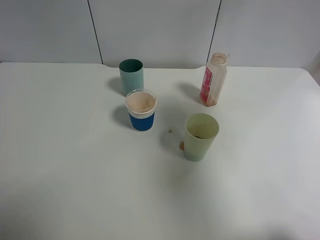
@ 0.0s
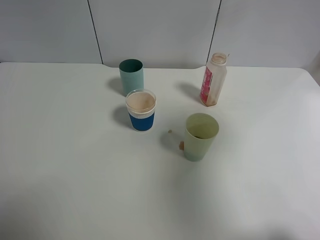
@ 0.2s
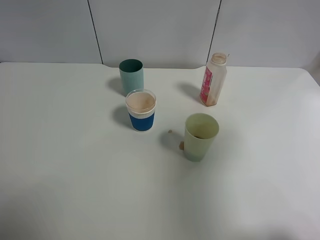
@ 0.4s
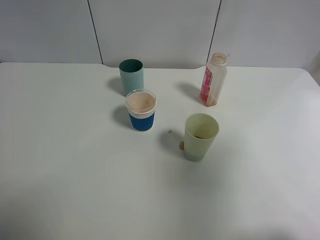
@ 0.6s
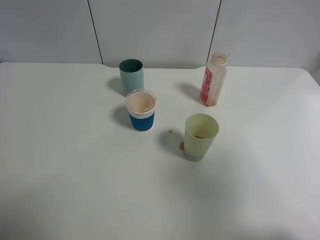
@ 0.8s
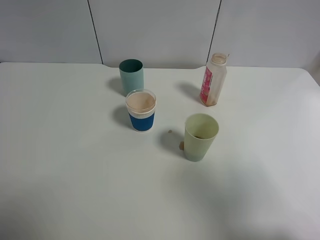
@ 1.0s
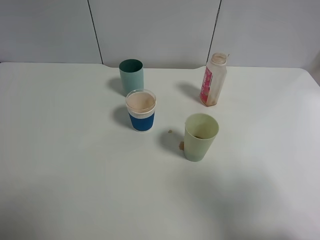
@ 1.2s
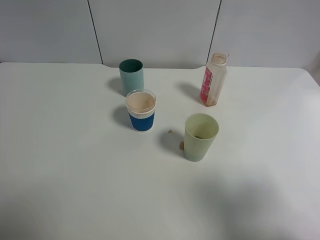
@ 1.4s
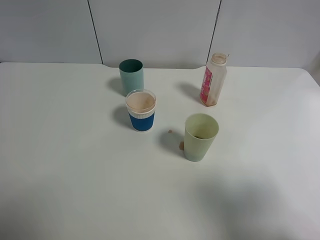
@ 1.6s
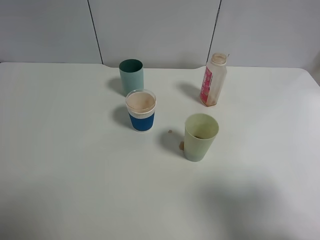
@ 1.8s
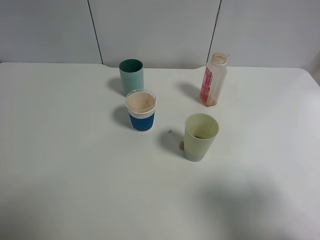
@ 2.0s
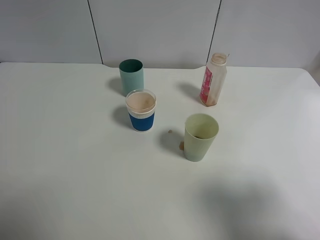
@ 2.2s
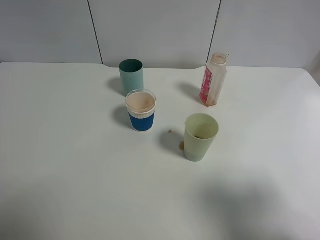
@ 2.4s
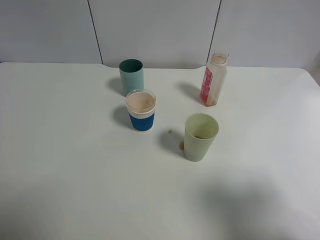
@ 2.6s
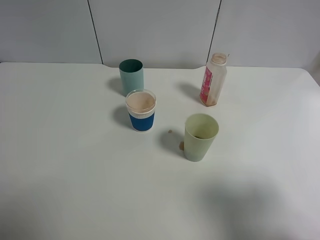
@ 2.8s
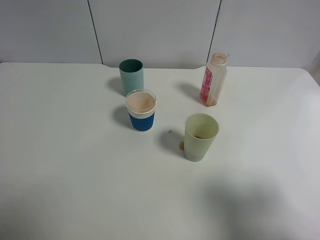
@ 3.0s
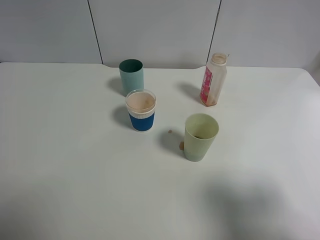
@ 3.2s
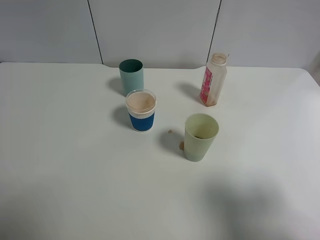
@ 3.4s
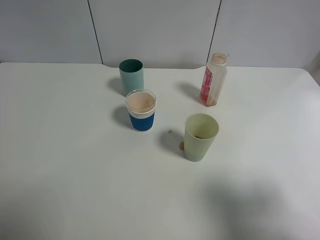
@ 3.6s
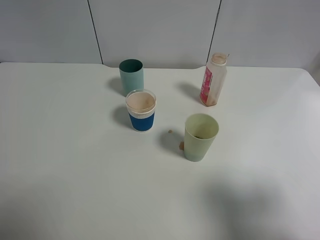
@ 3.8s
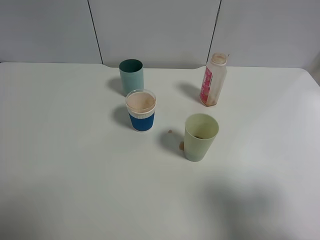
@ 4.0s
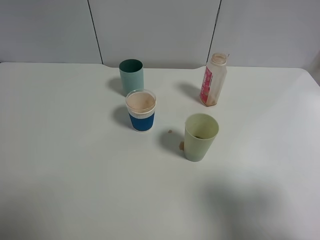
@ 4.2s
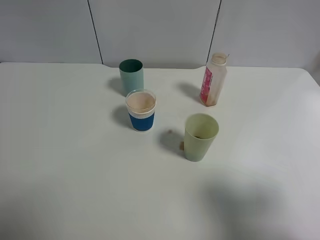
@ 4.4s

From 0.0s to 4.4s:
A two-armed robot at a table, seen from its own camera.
Task of the whole recording: use a gripper to hold the bottle of the drink and pour it into a random cup.
From 0.0s to 1.4s: The right gripper is displaced backward and downward by about 20 cm.
From 3.0s to 4.4s: Both grippers stay put.

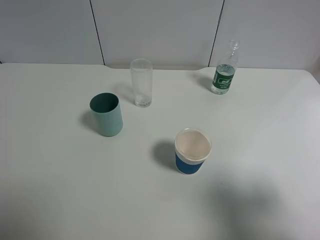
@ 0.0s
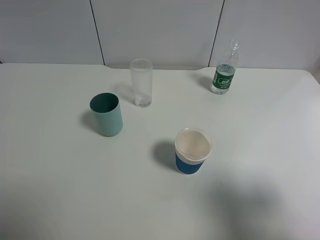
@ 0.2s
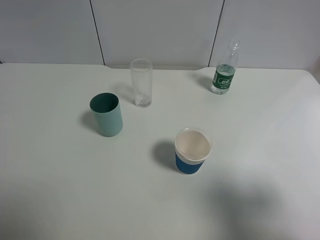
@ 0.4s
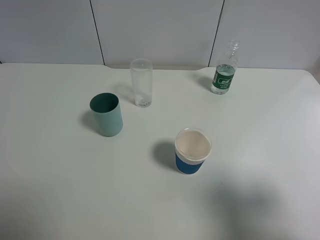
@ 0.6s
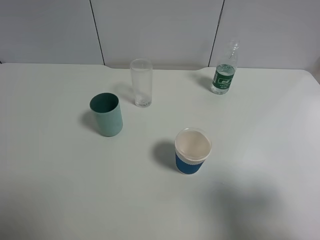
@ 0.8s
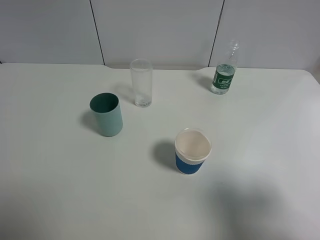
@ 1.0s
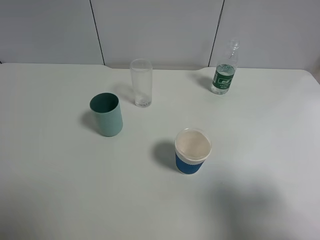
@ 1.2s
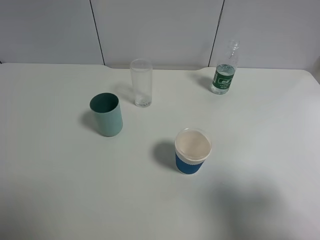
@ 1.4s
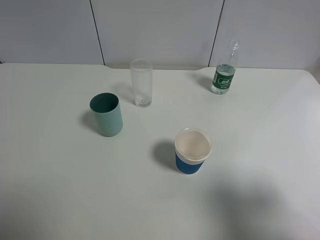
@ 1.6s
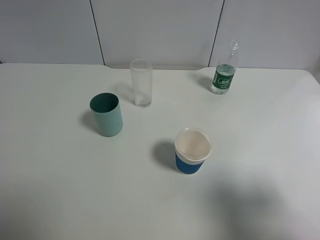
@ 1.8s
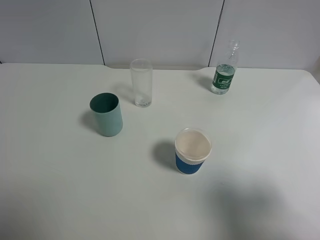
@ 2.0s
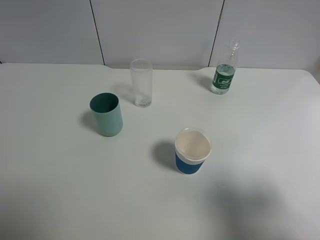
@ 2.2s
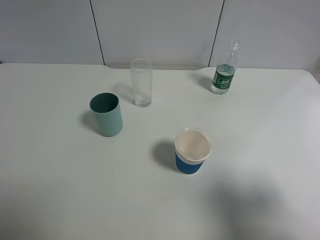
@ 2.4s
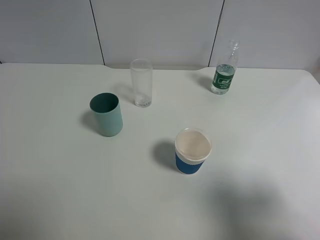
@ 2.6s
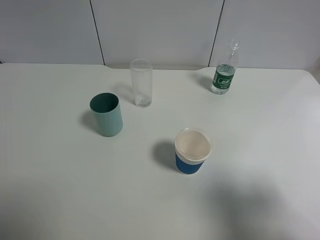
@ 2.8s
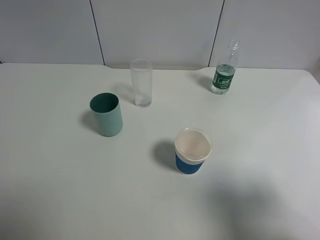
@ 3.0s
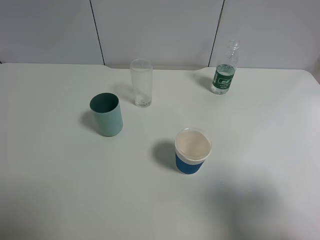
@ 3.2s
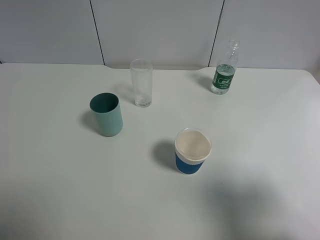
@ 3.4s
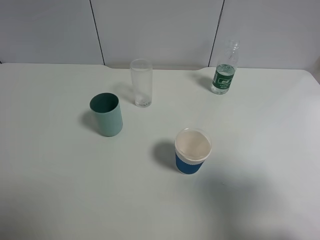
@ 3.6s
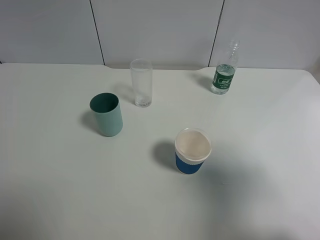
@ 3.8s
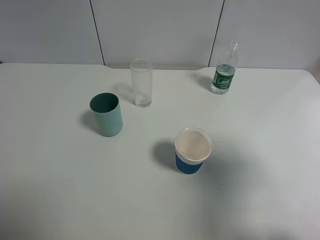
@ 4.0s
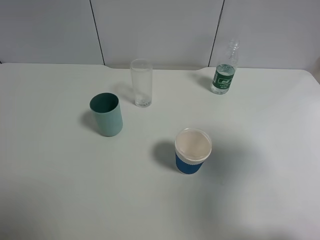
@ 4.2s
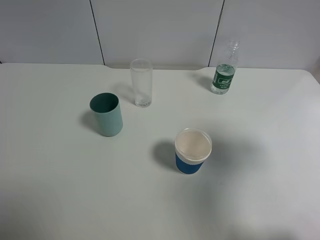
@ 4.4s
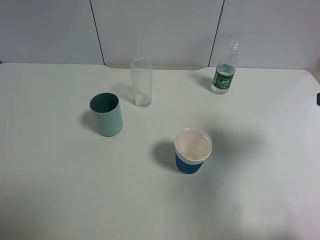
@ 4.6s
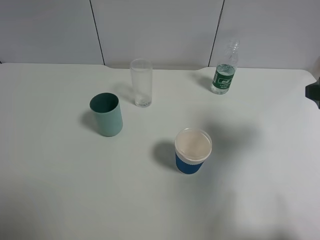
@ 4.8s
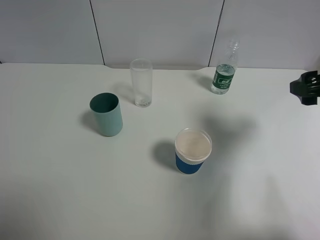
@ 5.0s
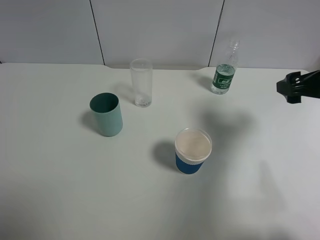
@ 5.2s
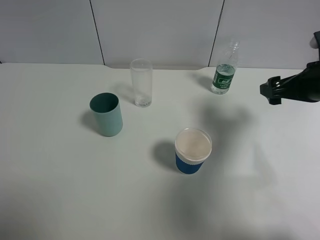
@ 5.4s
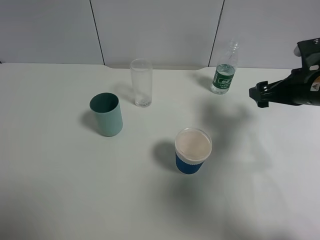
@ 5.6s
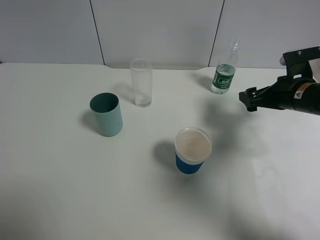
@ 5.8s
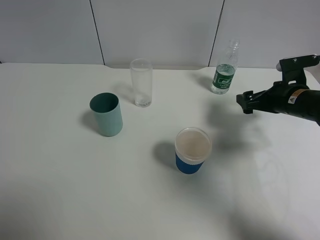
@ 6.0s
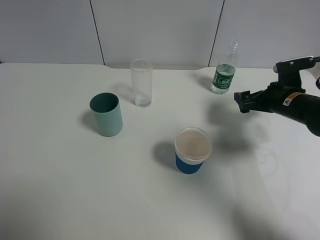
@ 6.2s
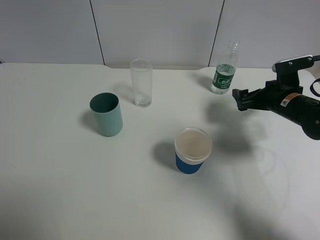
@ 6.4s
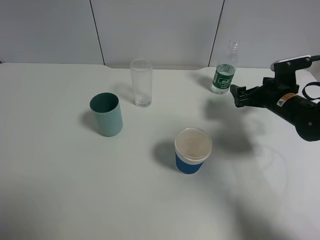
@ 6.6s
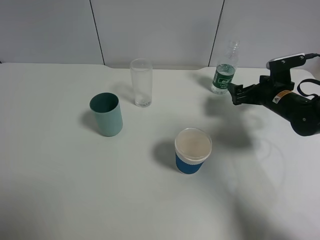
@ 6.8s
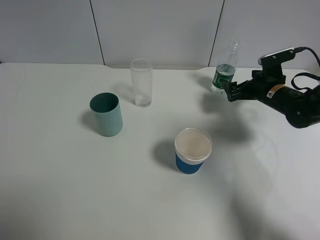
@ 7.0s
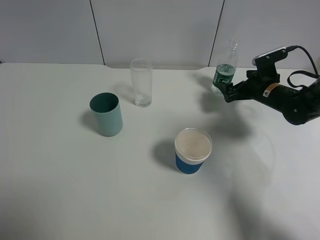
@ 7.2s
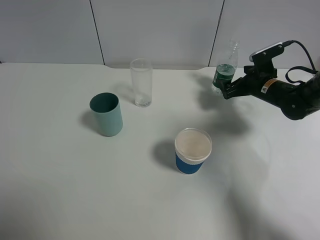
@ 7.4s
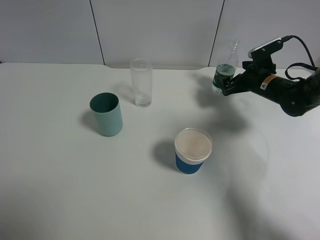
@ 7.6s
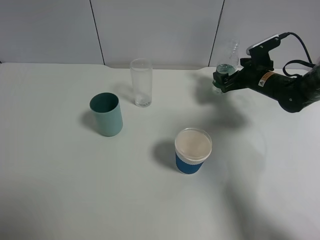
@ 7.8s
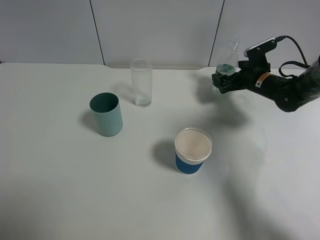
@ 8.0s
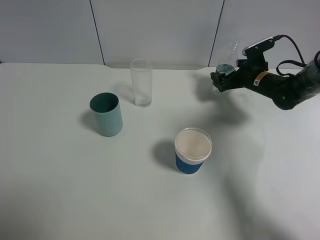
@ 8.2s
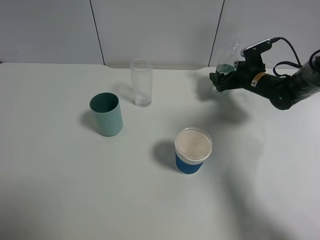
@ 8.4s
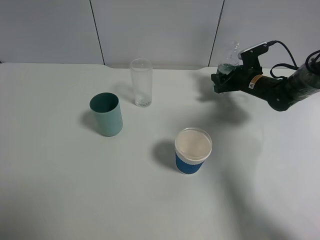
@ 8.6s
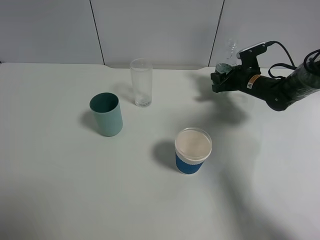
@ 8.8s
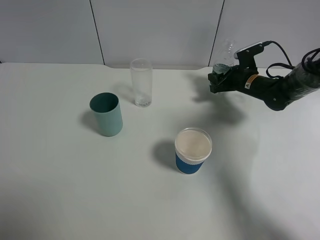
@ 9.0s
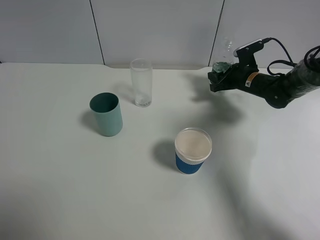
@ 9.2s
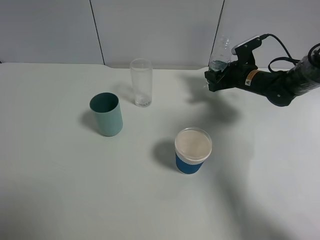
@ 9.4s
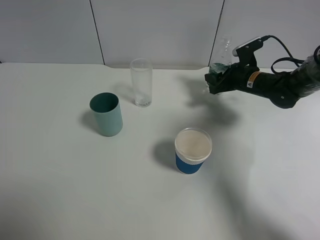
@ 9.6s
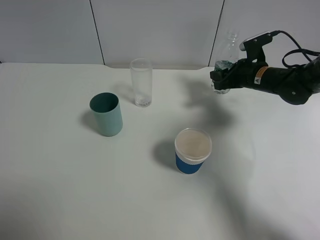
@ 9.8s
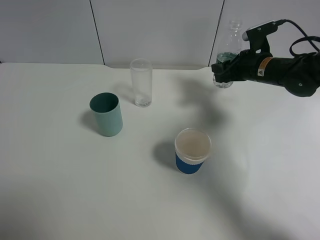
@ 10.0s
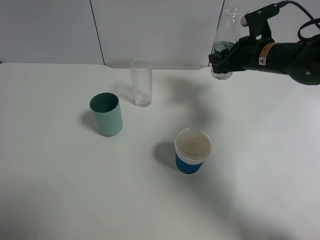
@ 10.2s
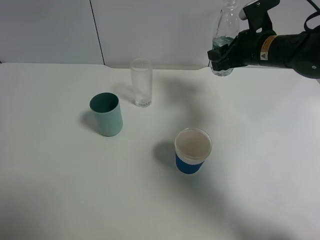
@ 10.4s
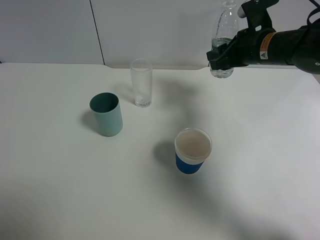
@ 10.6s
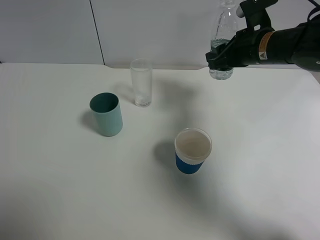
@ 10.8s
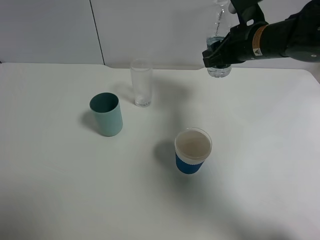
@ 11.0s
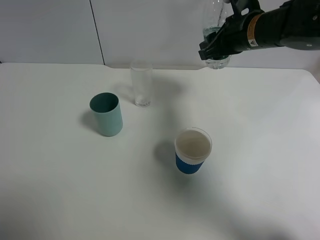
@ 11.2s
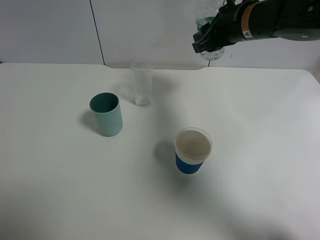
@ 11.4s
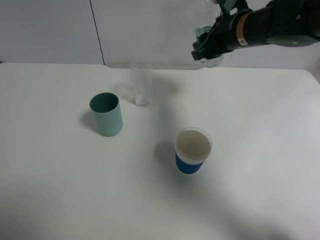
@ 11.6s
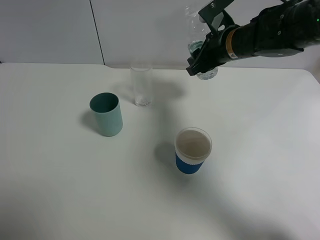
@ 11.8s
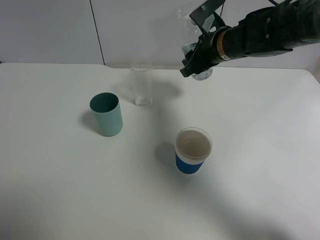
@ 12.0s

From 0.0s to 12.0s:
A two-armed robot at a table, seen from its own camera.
Task of the whole recording: use a gripper to hold the bottle of the drink and pour it into a random cup.
Step, from 0.0s to 8.6s: Grasp the mineral water bottle with the right gripper.
From 0.0s to 3.0s: Neither gripper changes place.
From 3.0s to 4.4s: The right gripper goes approximately 10 cm forward.
From 4.4s to 6.0s: The right gripper shifts approximately 25 cm forward and downward.
From 6.0s to 7.6s: The right gripper shifts about 10 cm forward.
From 7.6s to 9.0s: The right gripper closes.
From 9.0s to 10.4s: The right gripper shifts approximately 15 cm upward and backward.
From 10.4s to 12.0s: The right gripper travels to the left by some 10 cm.

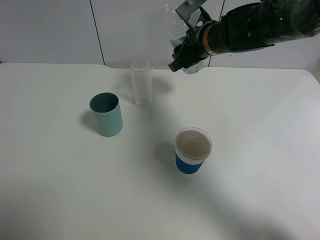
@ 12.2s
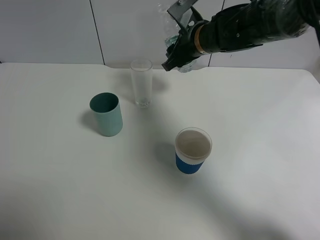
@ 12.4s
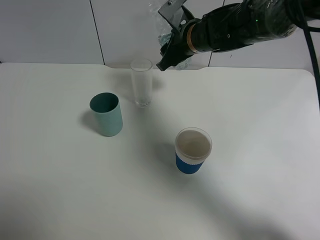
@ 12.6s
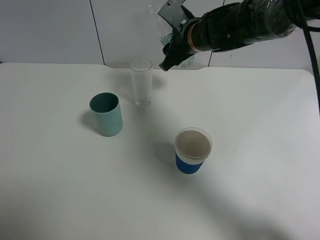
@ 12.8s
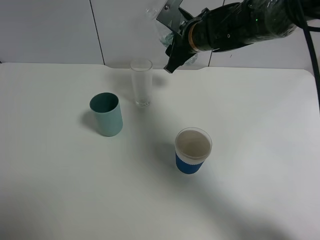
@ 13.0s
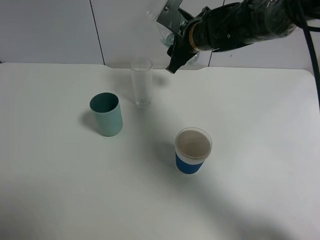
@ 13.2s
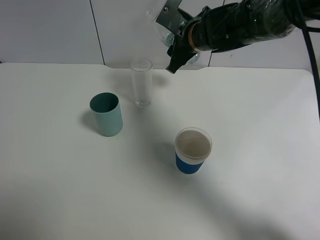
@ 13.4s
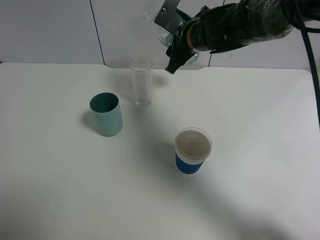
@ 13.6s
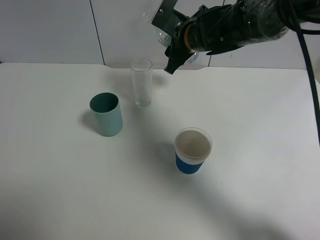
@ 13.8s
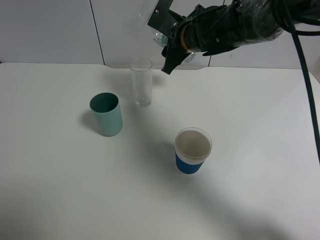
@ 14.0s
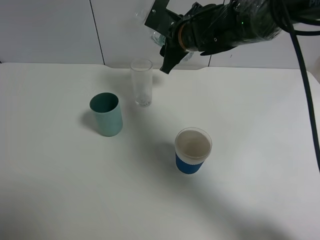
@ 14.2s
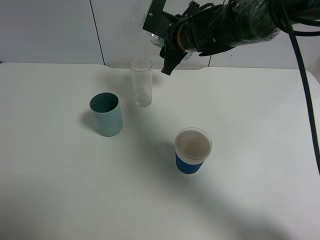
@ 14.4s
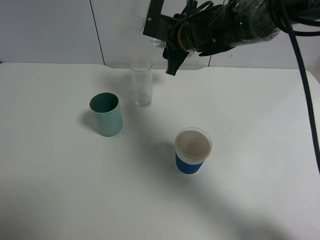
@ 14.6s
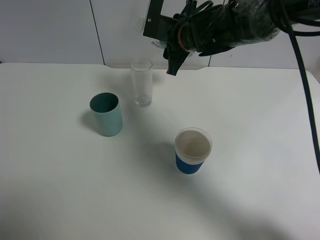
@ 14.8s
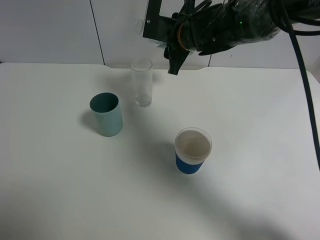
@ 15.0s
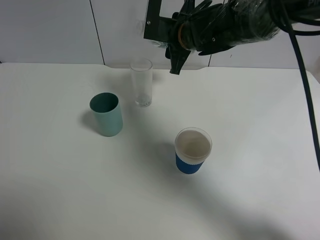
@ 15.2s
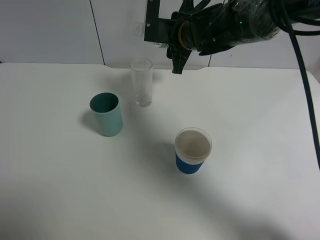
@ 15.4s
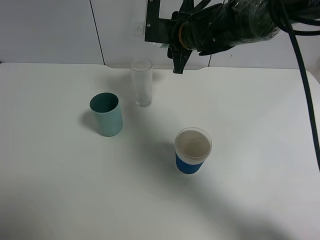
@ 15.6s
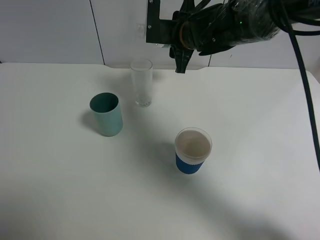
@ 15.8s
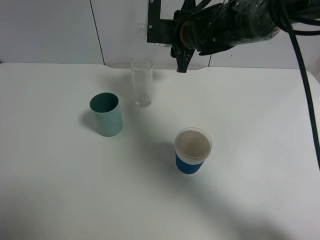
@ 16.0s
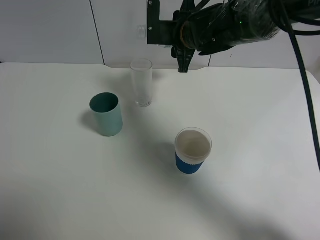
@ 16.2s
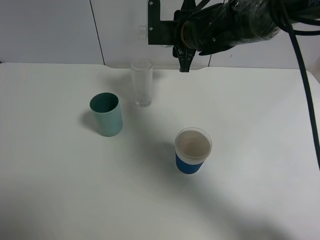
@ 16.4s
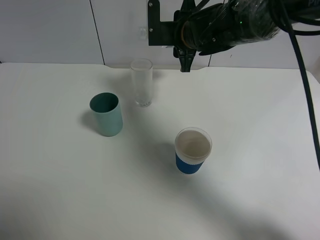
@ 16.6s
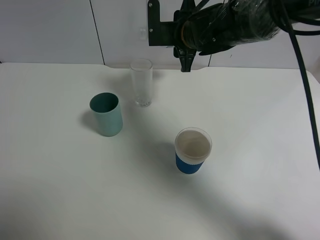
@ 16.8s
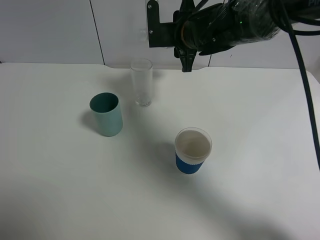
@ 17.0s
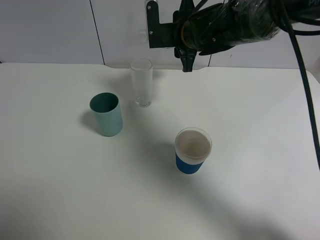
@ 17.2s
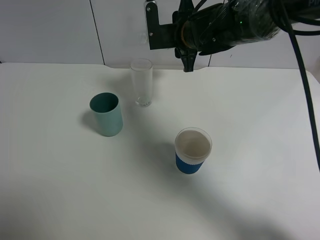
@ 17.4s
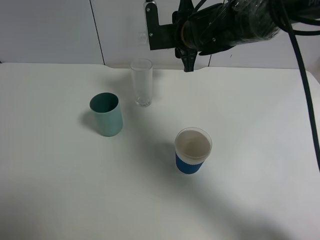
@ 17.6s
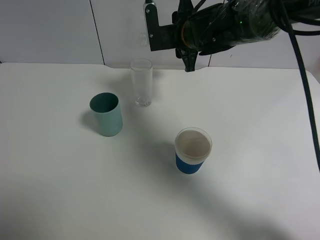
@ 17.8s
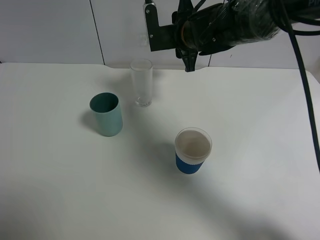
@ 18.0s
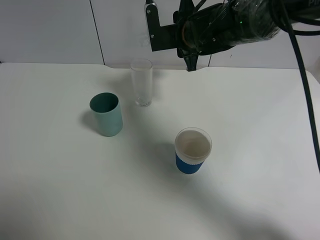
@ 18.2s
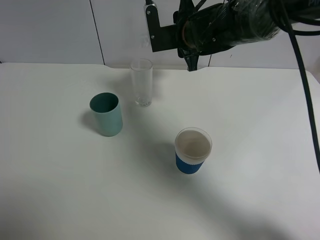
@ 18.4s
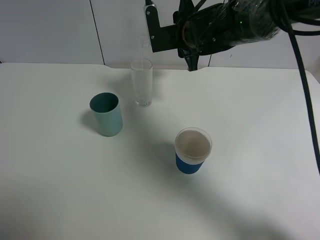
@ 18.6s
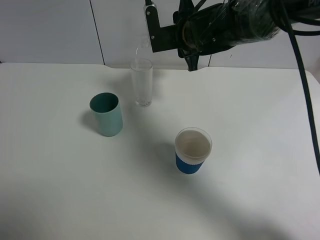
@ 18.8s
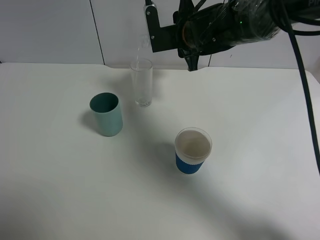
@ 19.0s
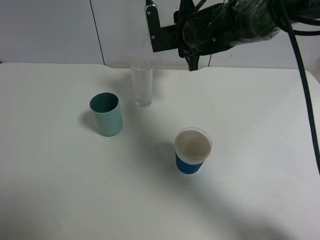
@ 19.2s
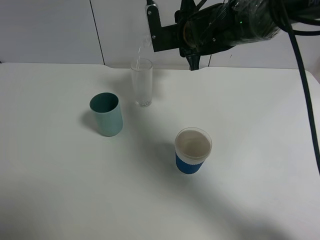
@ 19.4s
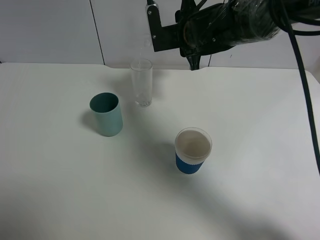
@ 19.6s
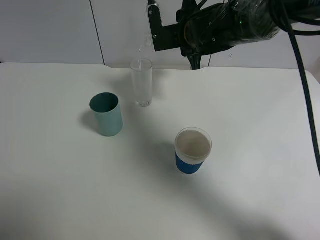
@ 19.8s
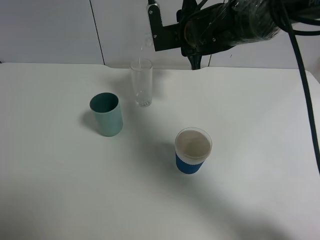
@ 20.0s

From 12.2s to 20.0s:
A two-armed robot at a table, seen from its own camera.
Task of the whole recording: use a gripper to hold the bottle of the drink and pour it into a random cup.
From 15.4s to 18.4s: There are only small adjustments of the grippers.
From 18.4s to 20.0s: Both grippers stay put.
